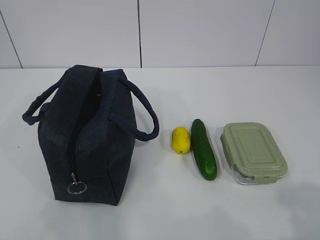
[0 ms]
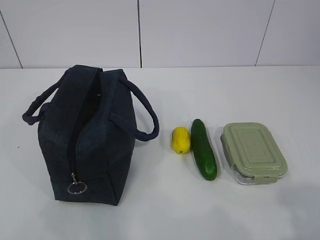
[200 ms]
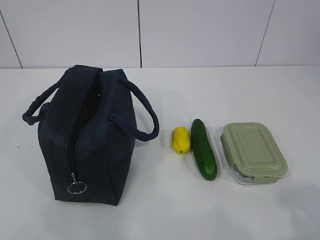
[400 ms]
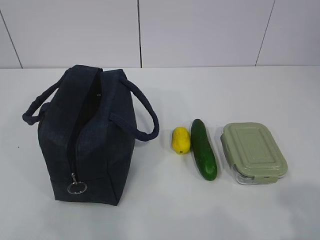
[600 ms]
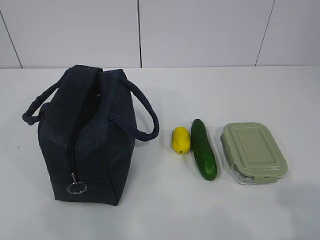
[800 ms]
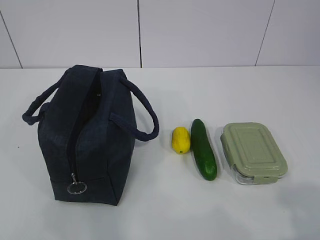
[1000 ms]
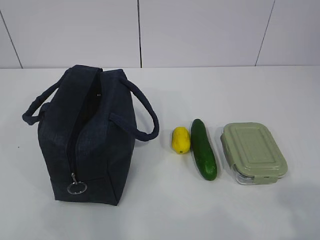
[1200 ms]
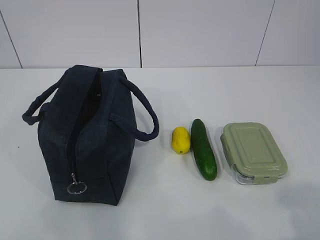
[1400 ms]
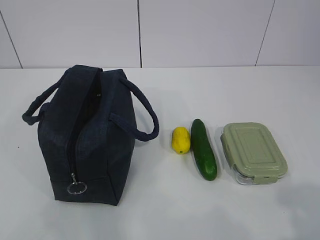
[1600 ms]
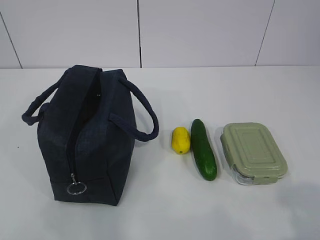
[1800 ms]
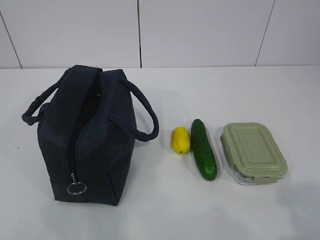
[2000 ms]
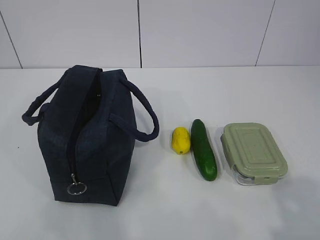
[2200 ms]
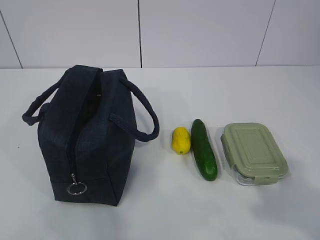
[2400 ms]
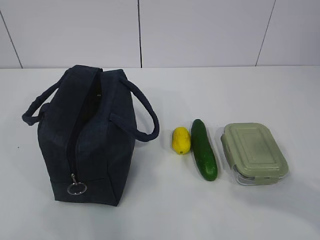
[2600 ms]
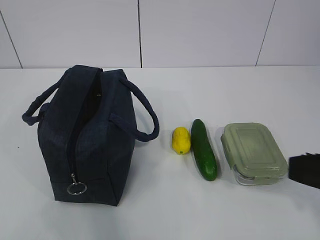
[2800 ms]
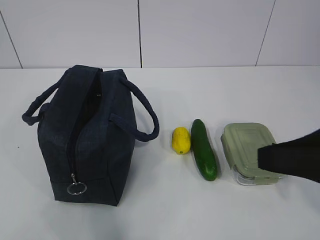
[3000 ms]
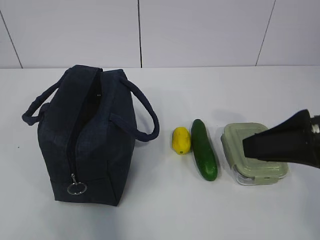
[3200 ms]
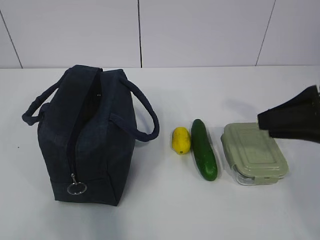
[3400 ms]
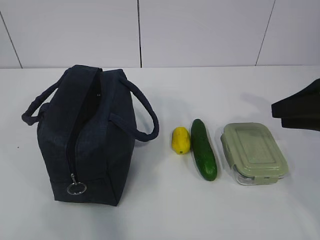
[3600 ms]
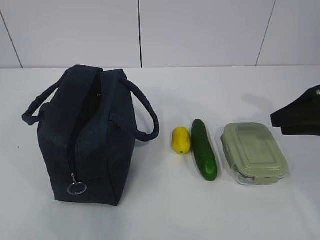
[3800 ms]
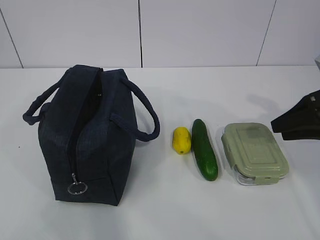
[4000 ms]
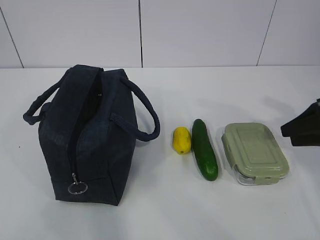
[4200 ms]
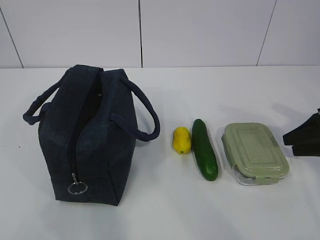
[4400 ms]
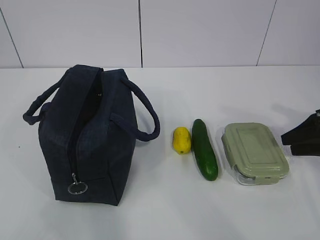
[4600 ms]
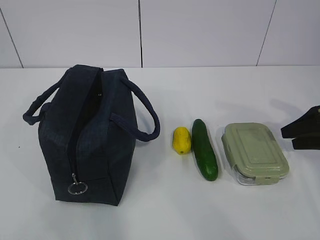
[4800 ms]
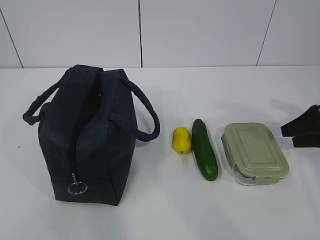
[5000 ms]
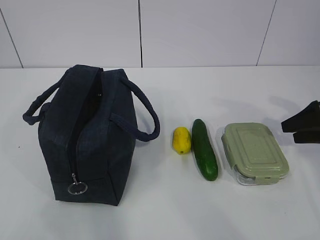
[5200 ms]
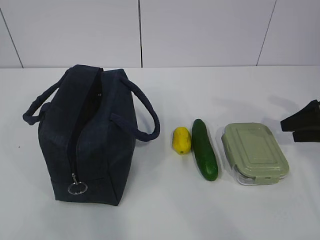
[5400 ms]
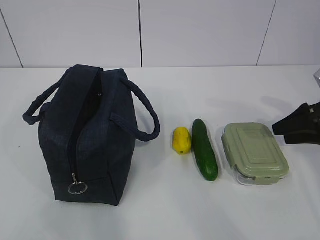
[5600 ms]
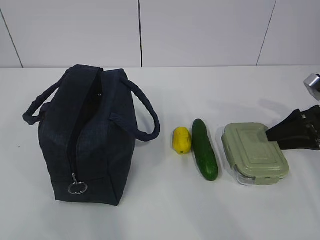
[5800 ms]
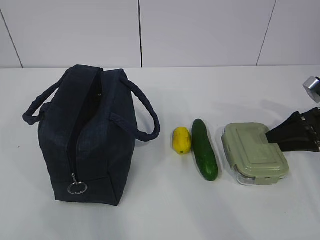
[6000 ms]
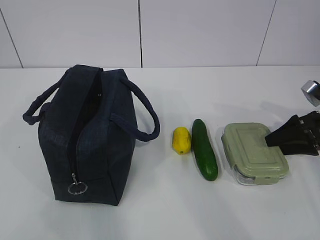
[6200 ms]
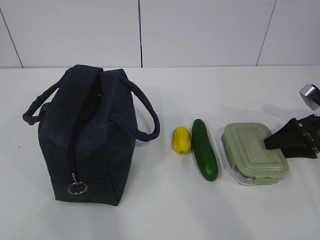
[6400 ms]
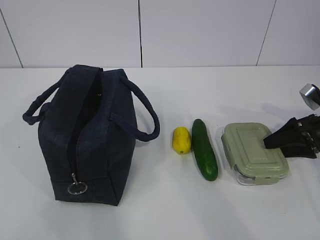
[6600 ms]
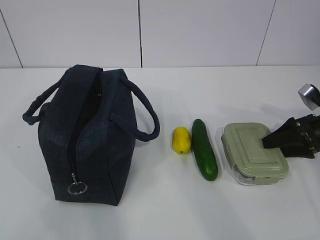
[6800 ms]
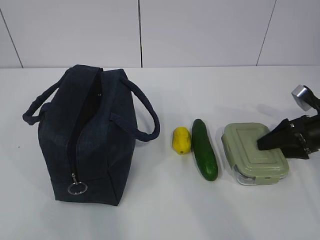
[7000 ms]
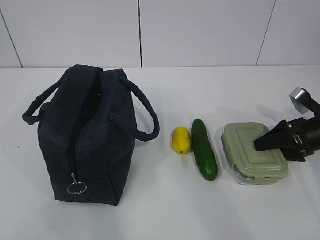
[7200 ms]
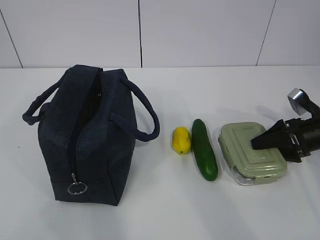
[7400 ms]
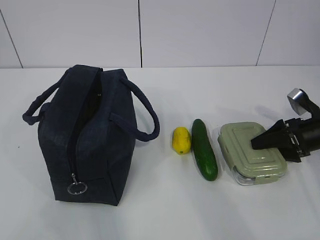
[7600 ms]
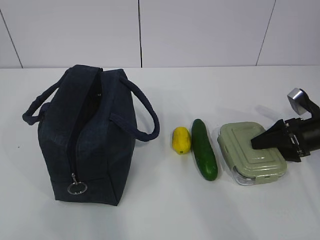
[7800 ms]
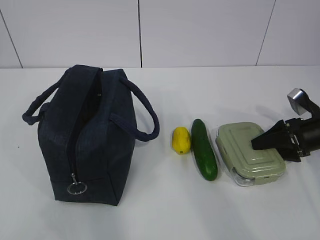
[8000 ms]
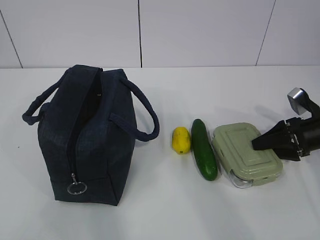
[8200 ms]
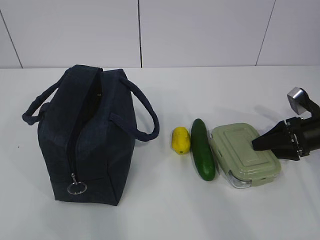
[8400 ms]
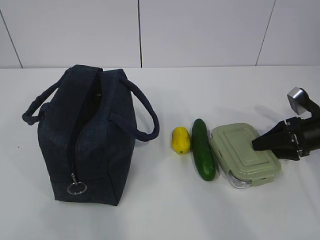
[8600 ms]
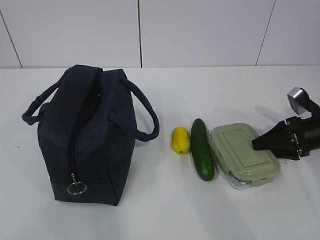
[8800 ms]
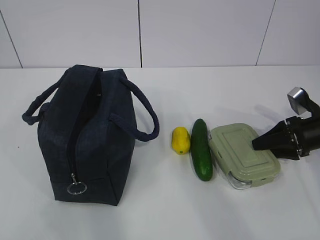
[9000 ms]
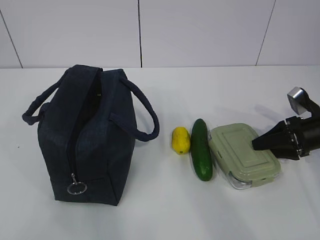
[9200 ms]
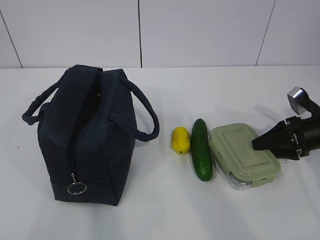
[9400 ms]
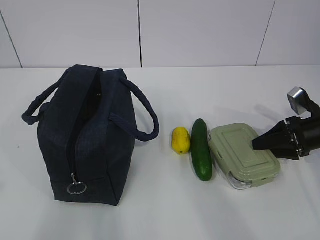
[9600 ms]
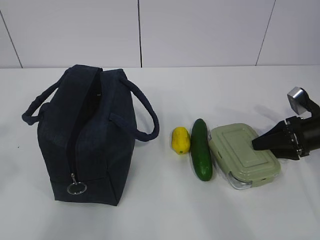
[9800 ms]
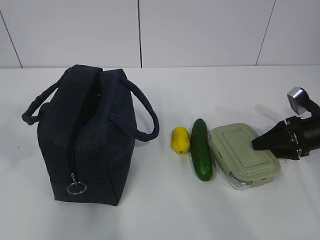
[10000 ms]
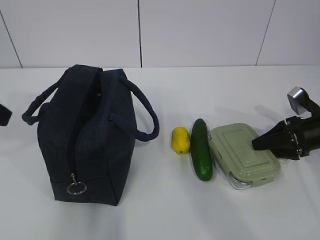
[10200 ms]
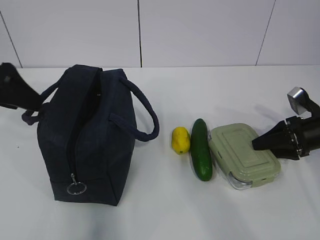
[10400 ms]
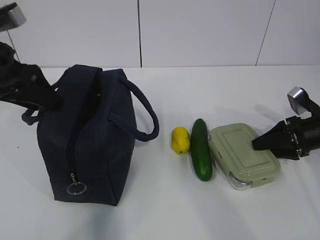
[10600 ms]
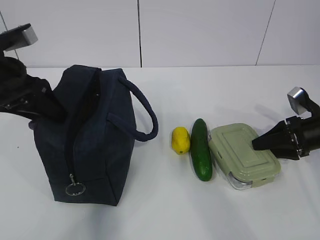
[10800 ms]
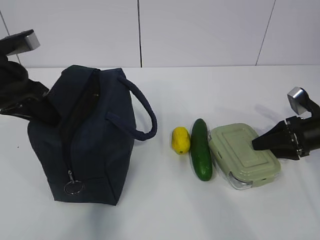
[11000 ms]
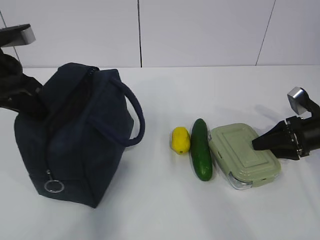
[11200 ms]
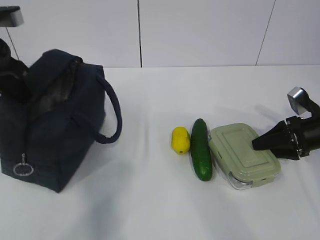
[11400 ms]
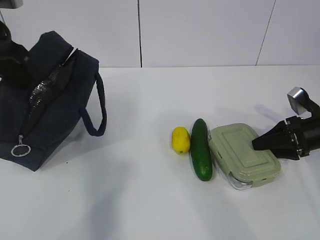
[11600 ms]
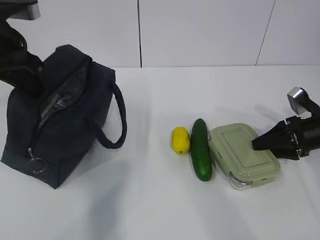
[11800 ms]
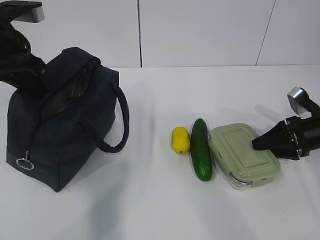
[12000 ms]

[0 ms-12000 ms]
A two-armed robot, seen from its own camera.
Step, 0 ms to 7200 ms: Grab the lunch box with your right hand.
1600 ms to 3000 ms: The right gripper moves forward, about 15 cm.
3000 ms to 4400 ms: The right gripper shifts roughly 25 cm forward, to the right and downward.
4400 ms to 6000 ms: There are only small adjustments of the grippers.
6000 ms to 7600 ms: The grippers move only a little.
7600 ms to 9000 ms: Both grippers stay about where they are.
9000 ms to 10400 ms: The left gripper goes some 25 cm forward, and opens.
10400 ms to 12000 ms: The left gripper travels forward by approximately 5 cm, and closes its fingers.

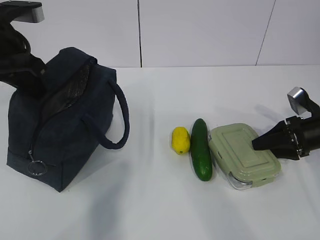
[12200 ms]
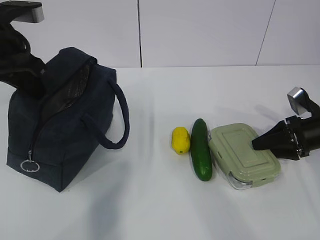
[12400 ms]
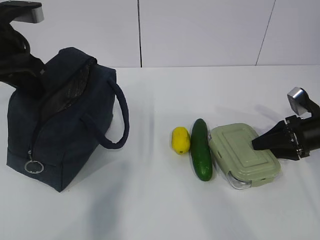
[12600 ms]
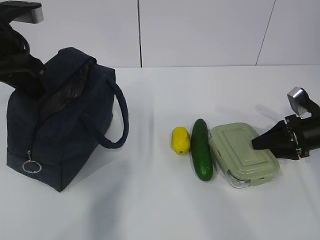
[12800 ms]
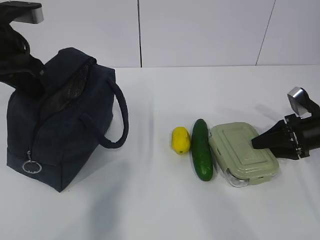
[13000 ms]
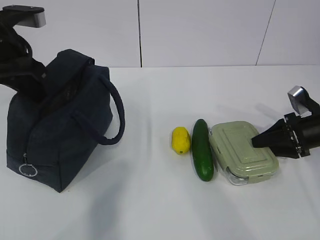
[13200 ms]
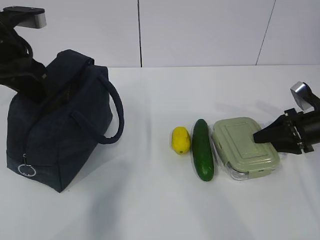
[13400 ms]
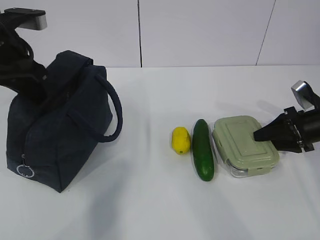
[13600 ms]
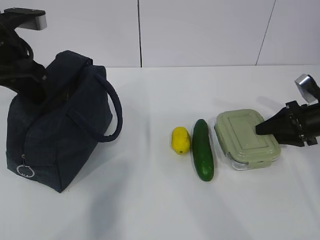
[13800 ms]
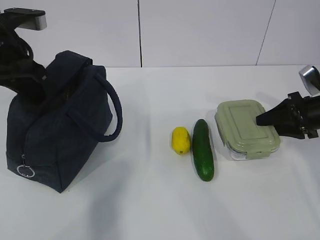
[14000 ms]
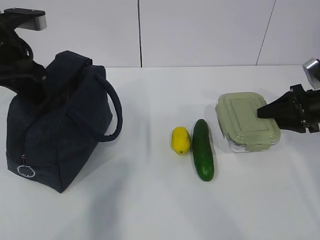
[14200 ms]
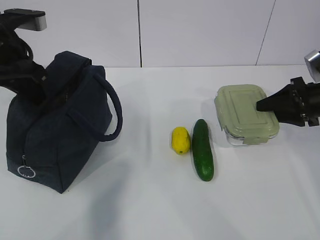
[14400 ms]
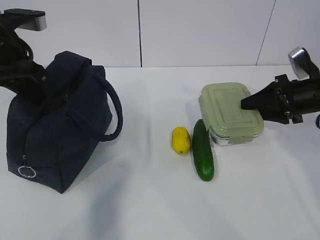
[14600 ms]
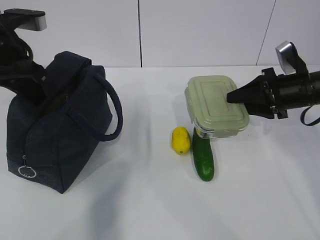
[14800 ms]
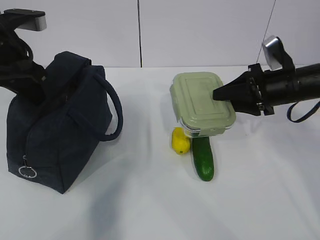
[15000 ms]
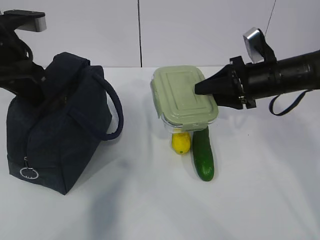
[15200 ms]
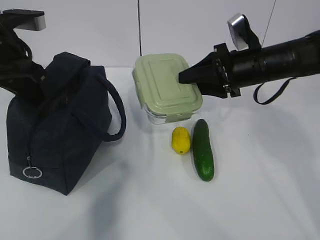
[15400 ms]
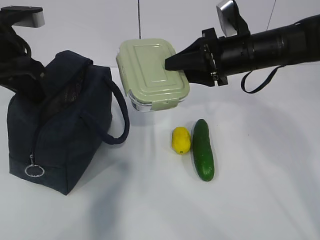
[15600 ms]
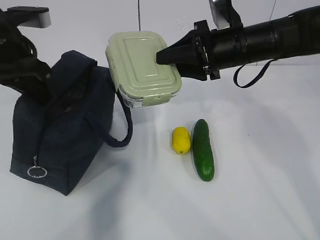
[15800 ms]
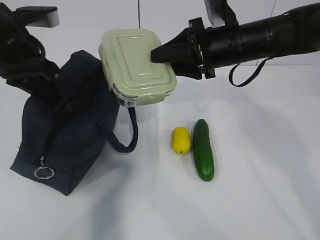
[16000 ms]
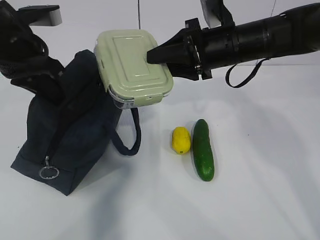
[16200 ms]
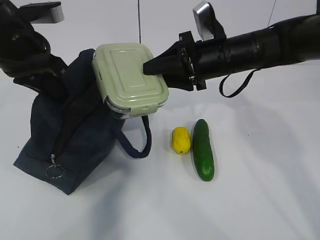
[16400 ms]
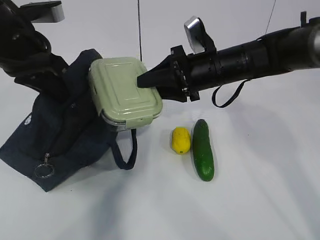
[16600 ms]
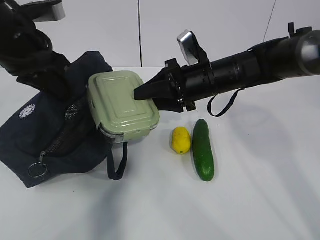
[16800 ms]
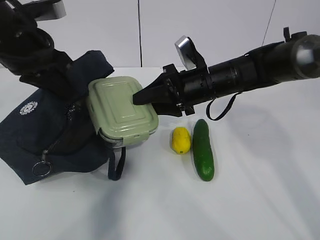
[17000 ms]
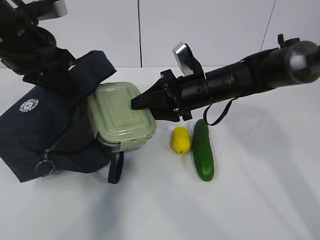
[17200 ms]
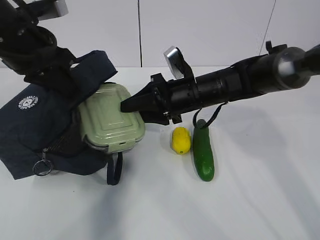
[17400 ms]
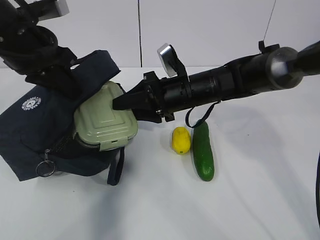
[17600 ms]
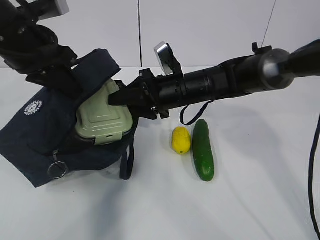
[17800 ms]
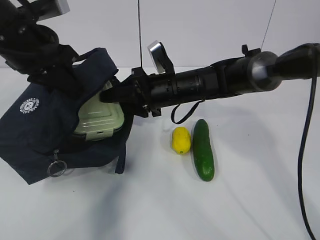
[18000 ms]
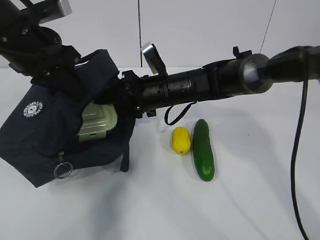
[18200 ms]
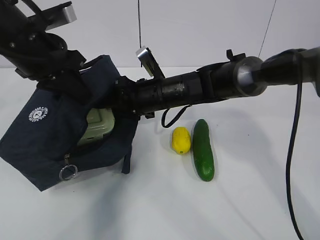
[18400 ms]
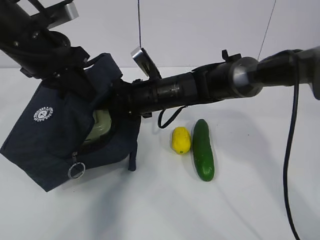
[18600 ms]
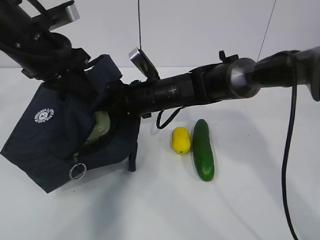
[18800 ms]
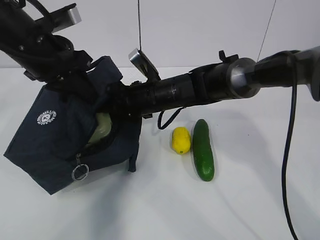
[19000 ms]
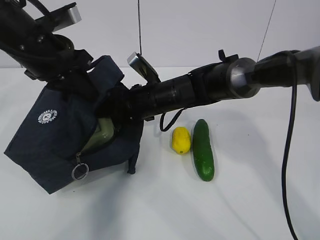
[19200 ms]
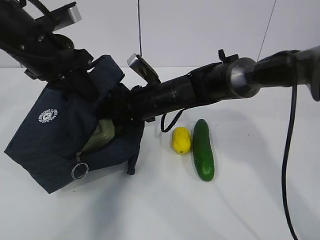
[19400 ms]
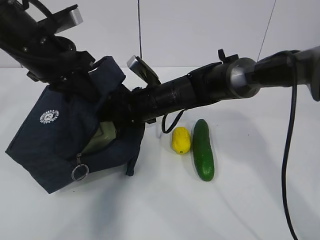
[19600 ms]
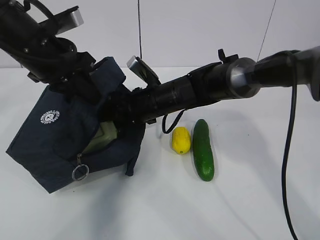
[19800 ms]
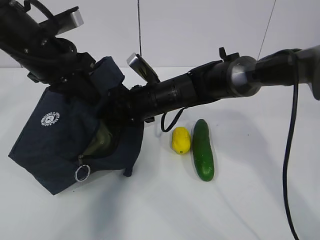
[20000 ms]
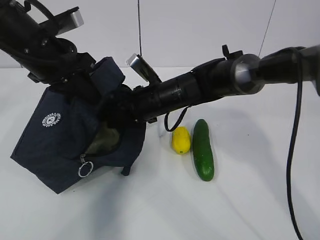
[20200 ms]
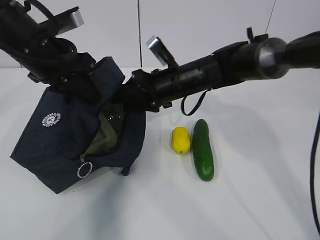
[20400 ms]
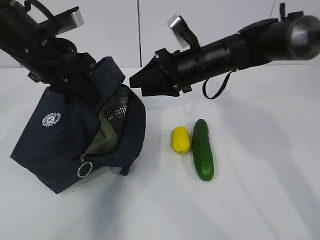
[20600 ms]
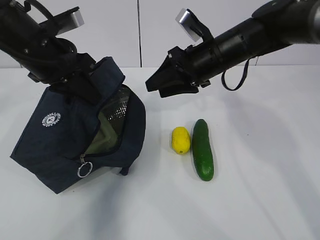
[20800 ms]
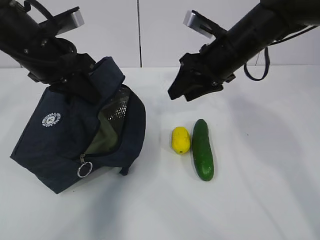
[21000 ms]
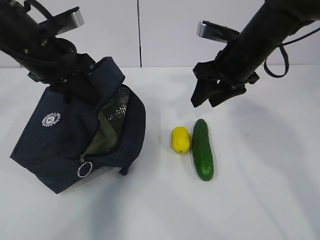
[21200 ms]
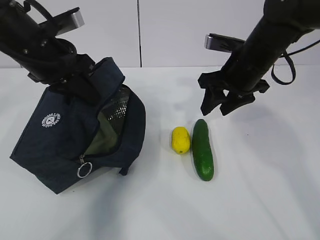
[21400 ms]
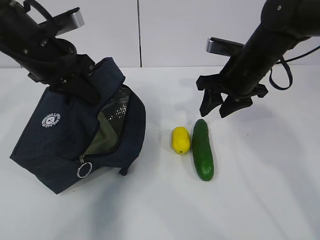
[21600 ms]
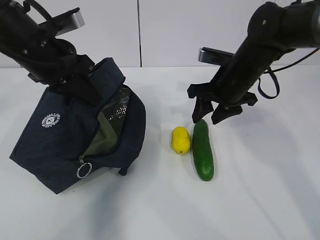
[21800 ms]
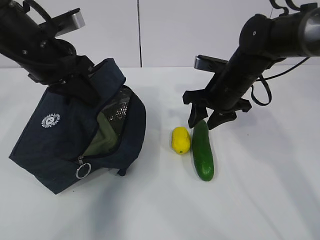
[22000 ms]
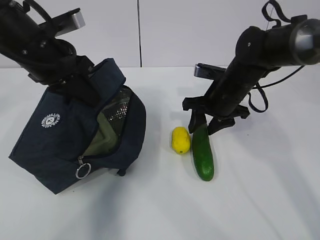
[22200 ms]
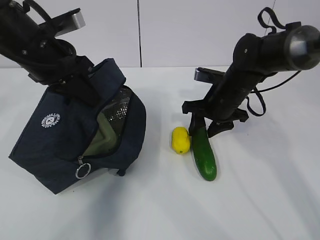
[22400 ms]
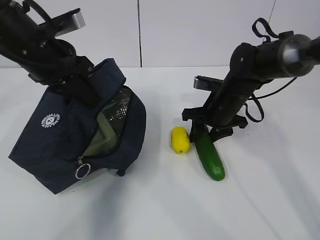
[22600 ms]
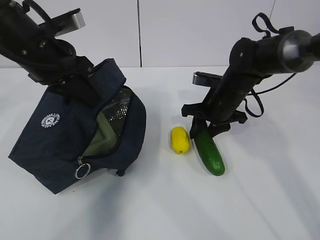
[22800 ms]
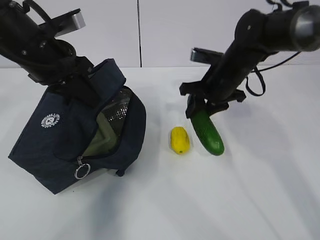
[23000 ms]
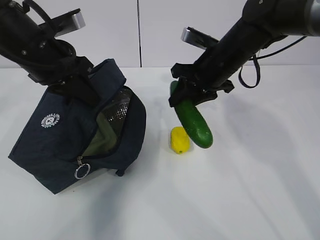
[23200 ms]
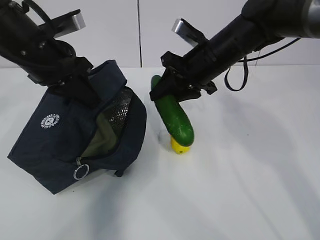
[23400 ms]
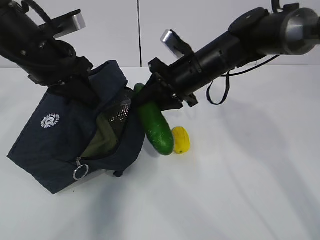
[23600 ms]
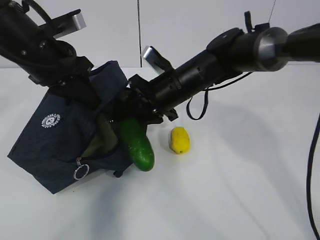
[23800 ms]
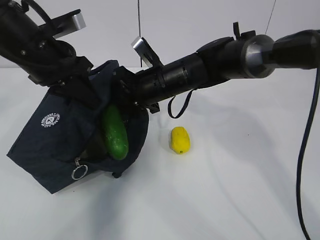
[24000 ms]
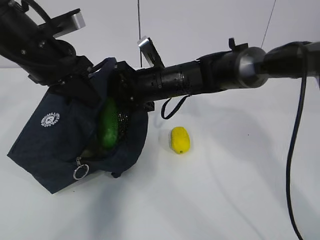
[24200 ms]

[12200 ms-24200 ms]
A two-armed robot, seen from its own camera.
Step, 13800 ms to 16800 ms: Place it into the bag with your right hand.
Step, 17000 ms to 18800 ms: Grab the cucumber with your right hand.
Step, 19000 ms to 21200 ms: Place it into the bag with your right hand.
Step, 21400 ms to 22800 ms: Grab the lemon with your right hand.
12200 ms to 13800 ms: The grippers stay close to where they were, moving slightly.
13800 ms to 15200 ms: The right gripper goes roughly 15 cm to the left and upward.
15200 ms to 16600 ms: The right gripper goes approximately 10 cm to the left.
16600 ms to 18200 ms: The right gripper travels to the left and downward by approximately 10 cm.
18200 ms to 19800 ms: There are only small adjustments of the grippers.
19800 ms to 21200 ms: The right gripper heads to the right and upward, covering roughly 15 cm.
21200 ms to 22600 ms: The right gripper is displaced downward by approximately 10 cm.
22600 ms to 24200 ms: The right gripper moves to the left, roughly 10 cm.
